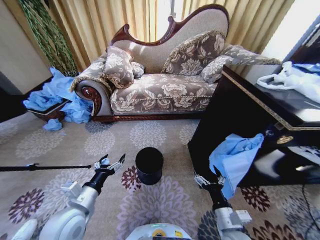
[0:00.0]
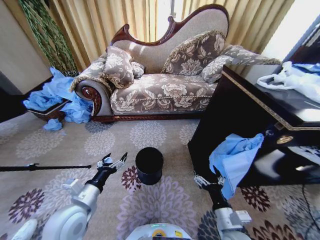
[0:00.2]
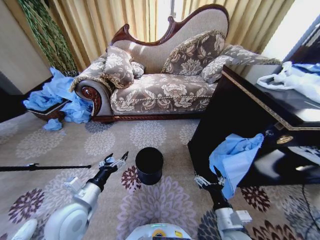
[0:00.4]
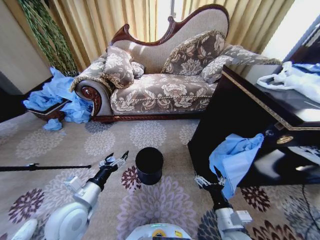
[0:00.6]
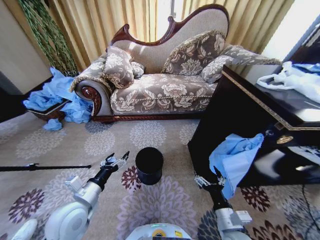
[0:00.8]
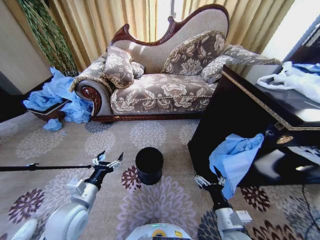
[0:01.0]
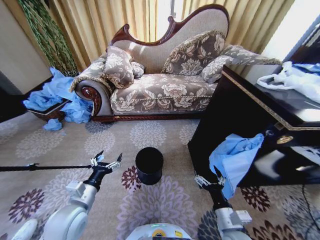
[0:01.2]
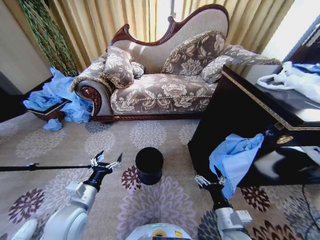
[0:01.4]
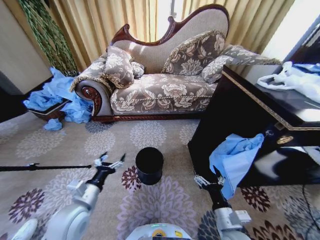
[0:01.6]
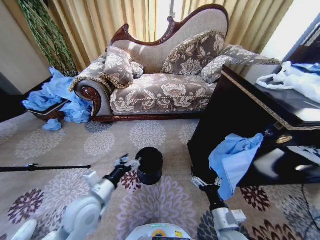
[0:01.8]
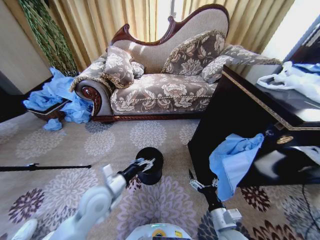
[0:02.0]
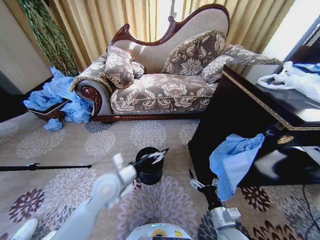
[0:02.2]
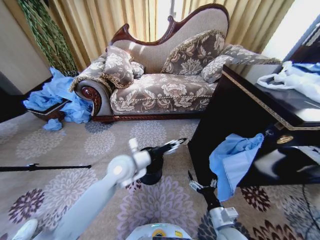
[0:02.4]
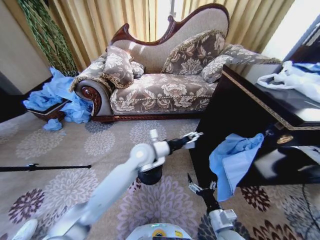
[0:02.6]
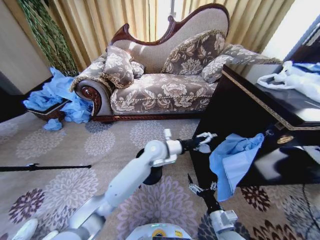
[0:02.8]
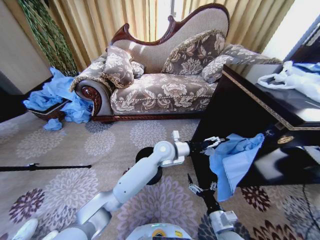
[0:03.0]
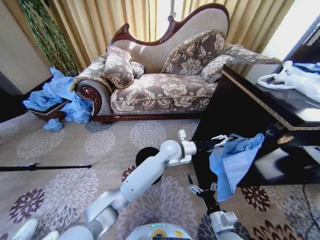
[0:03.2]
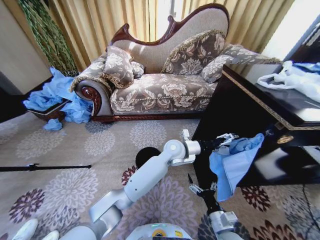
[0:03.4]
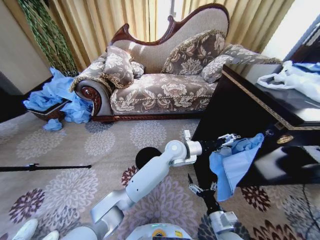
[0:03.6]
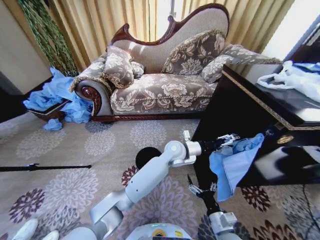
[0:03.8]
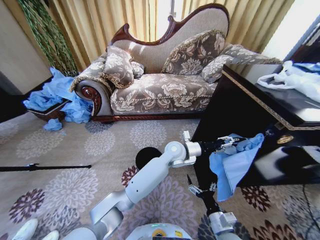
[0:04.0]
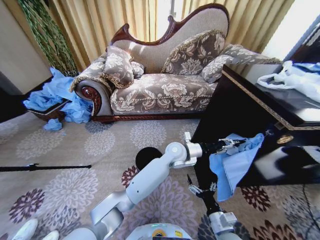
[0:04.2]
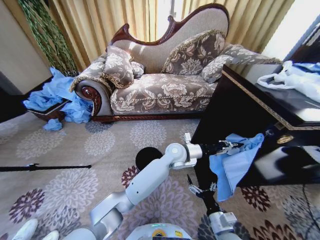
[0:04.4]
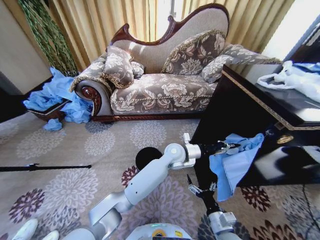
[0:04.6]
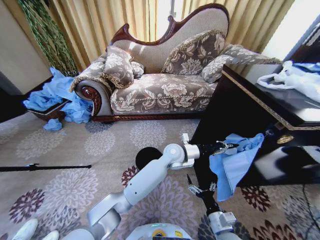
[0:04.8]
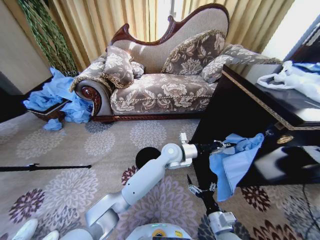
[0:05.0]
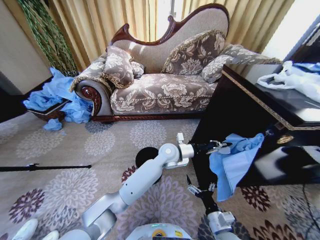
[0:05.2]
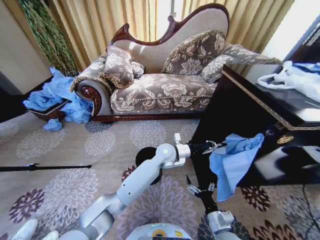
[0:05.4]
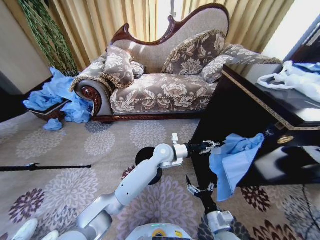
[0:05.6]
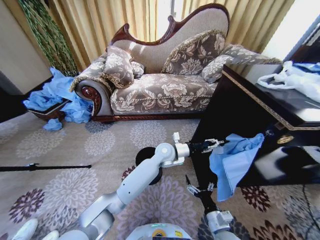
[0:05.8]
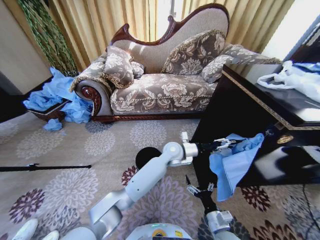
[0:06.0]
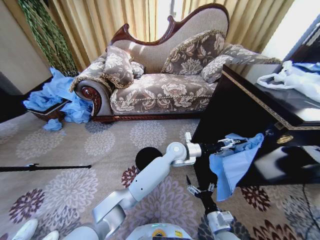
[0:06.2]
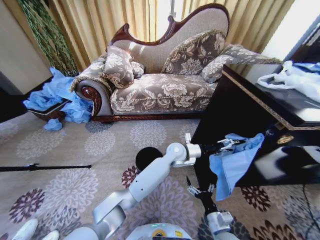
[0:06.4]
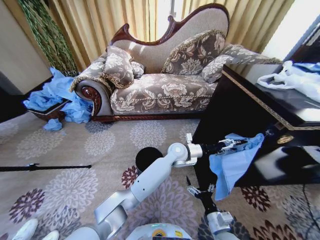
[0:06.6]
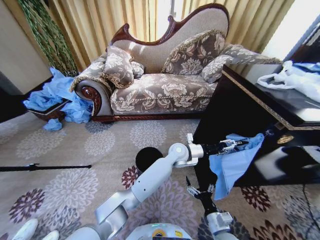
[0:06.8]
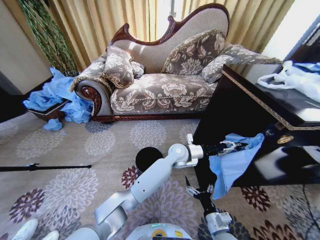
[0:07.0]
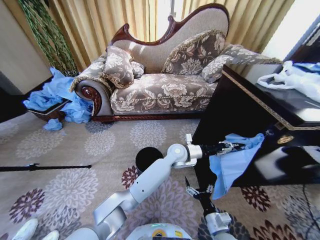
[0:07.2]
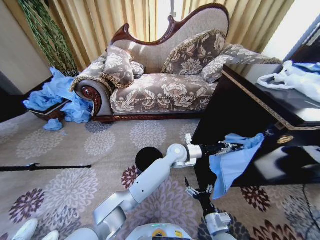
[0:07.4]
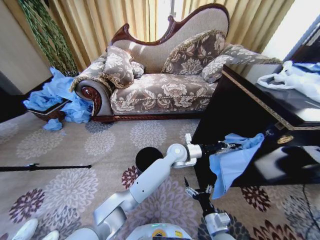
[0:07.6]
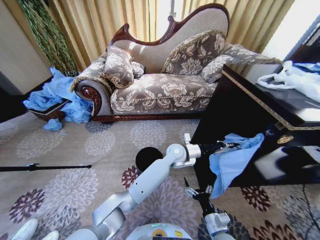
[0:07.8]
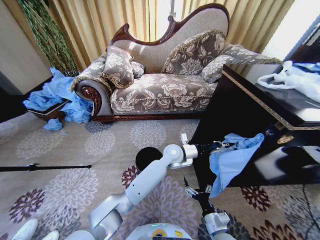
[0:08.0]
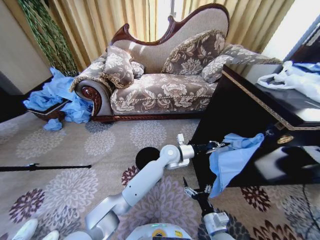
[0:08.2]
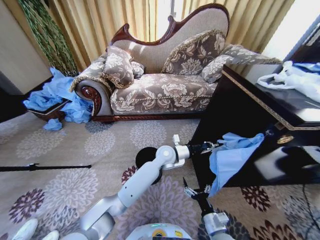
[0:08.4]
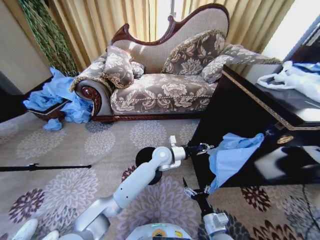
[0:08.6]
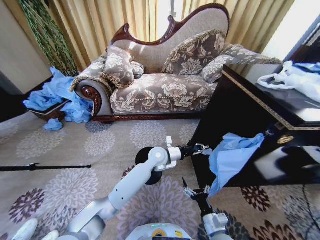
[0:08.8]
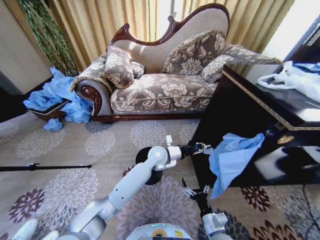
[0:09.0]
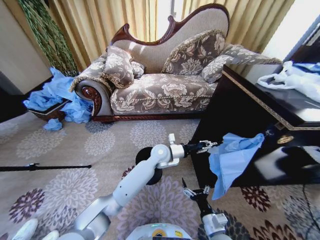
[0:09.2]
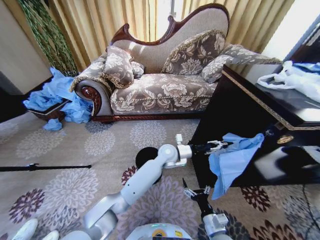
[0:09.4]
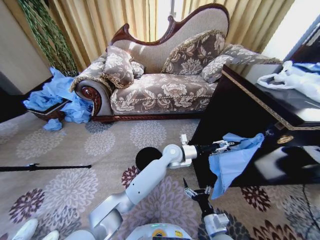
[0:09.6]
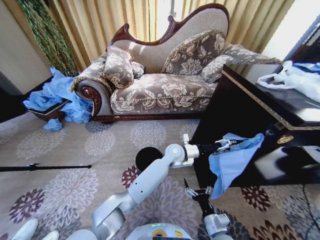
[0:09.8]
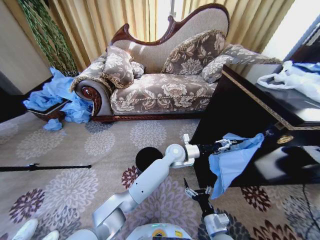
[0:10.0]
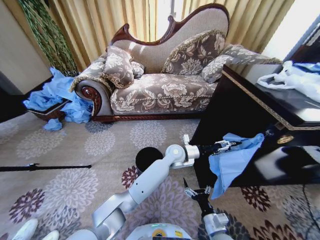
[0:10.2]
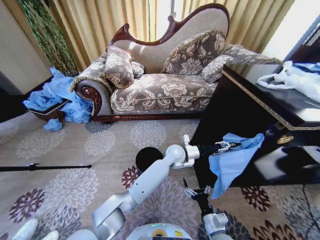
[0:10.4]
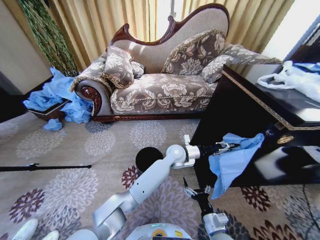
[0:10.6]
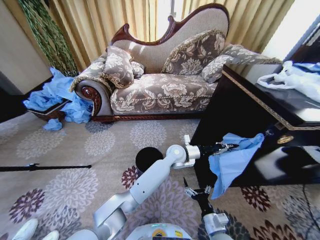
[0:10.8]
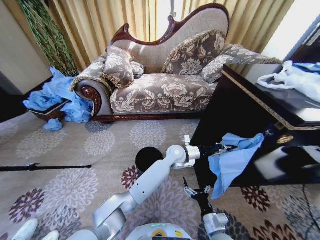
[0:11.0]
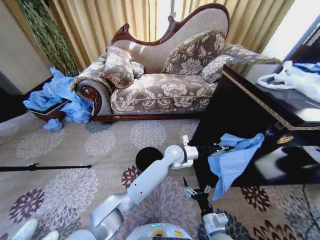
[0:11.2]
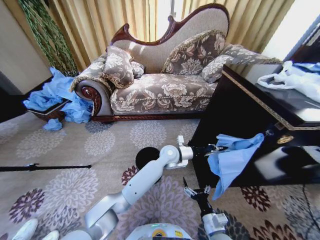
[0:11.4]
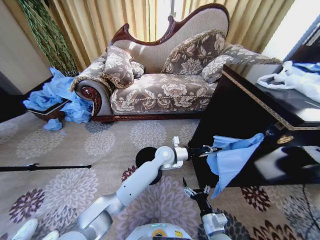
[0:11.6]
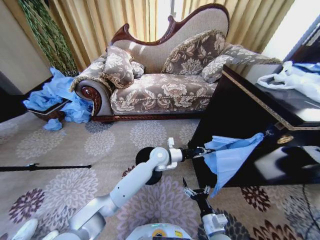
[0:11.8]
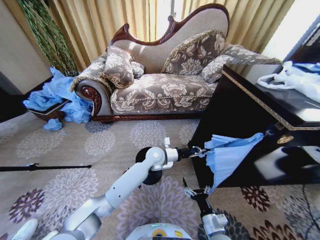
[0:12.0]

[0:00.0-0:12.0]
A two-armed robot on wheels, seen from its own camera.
Task of the whole recording: Place a garbage bag over the trash bin.
0:01.6 to 0:03.0: The right gripper travels downward by approximately 5 cm. The left gripper goes roughly 35 cm to the right and forward.
0:03.0 to 0:04.4: The left gripper moves some 5 cm, and closes its fingers.
0:04.4 to 0:06.0: The left gripper opens.
0:06.0 to 0:07.6: The left gripper closes.
0:07.6 to 0:09.0: The left gripper heads to the left, covering about 10 cm.
0:09.0 to 0:10.4: The left gripper heads to the right, covering some 10 cm, and opens up.
0:10.4 to 0:12.0: The left gripper heads to the left, covering approximately 10 cm, and closes up.

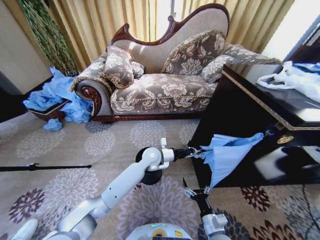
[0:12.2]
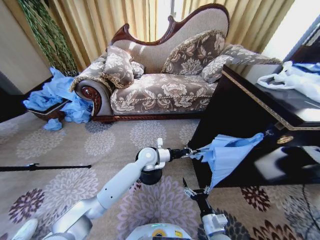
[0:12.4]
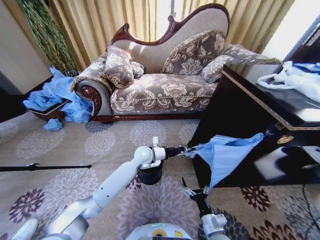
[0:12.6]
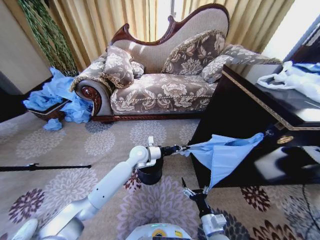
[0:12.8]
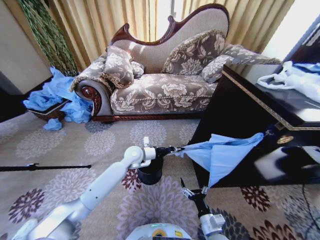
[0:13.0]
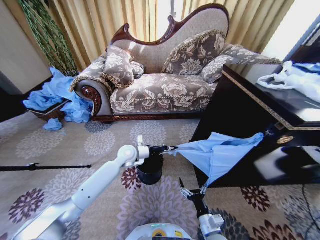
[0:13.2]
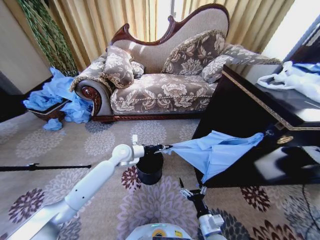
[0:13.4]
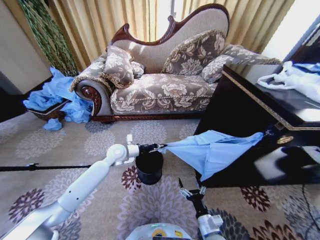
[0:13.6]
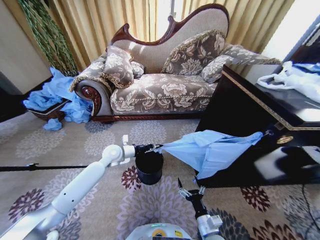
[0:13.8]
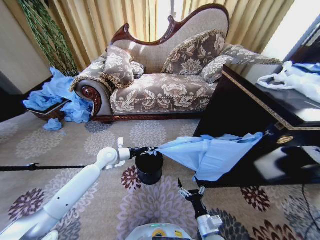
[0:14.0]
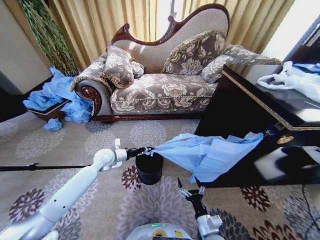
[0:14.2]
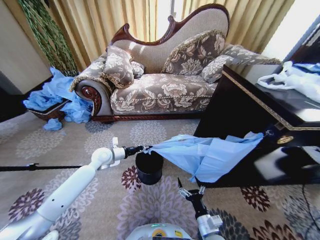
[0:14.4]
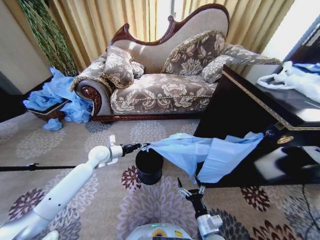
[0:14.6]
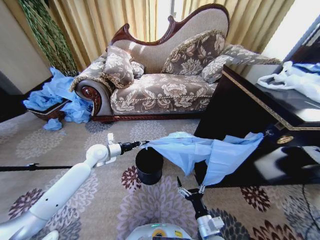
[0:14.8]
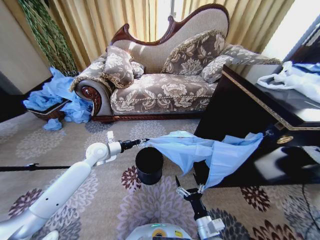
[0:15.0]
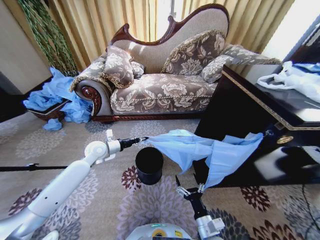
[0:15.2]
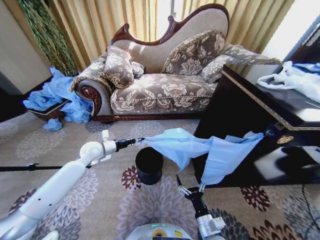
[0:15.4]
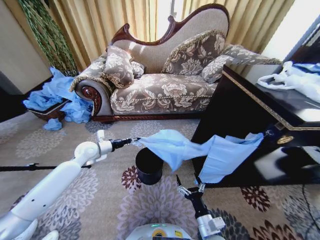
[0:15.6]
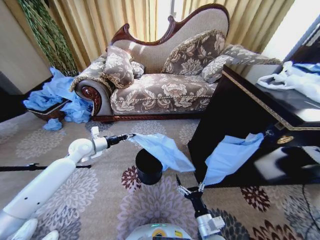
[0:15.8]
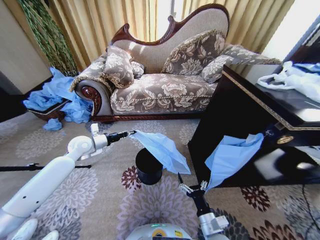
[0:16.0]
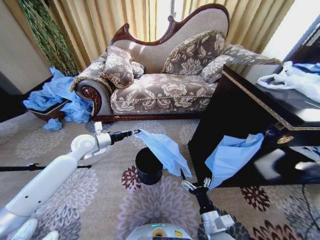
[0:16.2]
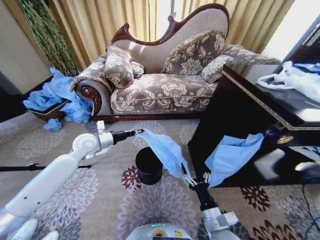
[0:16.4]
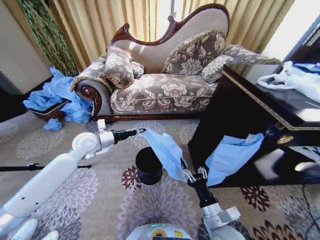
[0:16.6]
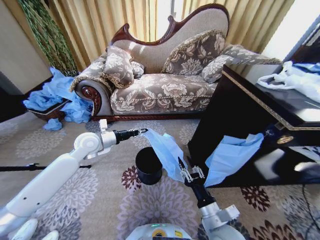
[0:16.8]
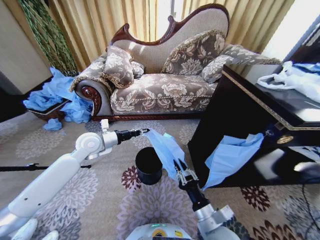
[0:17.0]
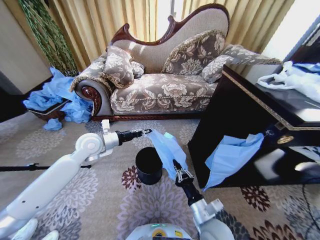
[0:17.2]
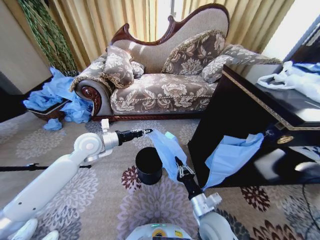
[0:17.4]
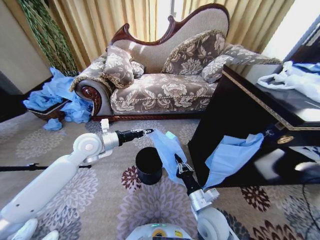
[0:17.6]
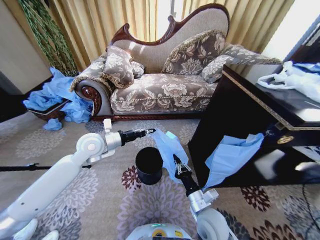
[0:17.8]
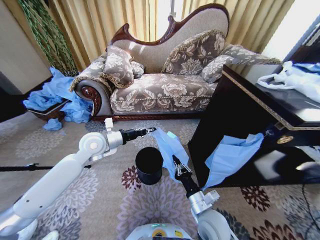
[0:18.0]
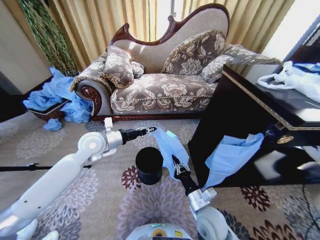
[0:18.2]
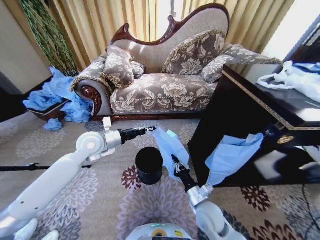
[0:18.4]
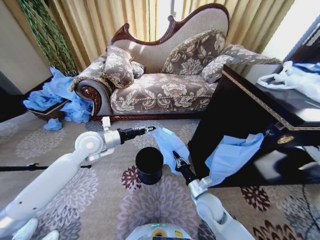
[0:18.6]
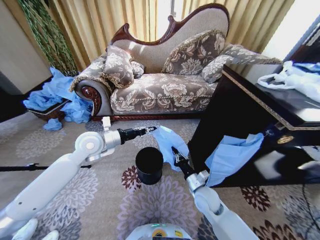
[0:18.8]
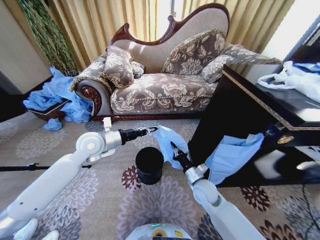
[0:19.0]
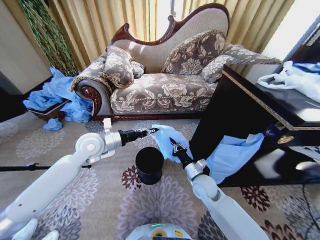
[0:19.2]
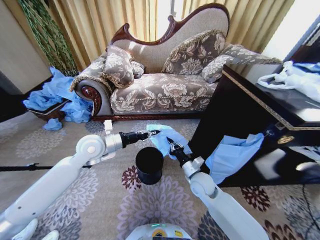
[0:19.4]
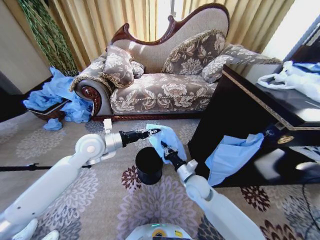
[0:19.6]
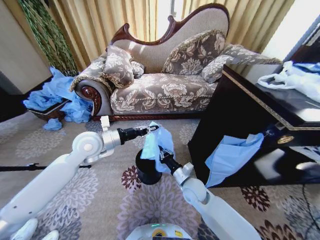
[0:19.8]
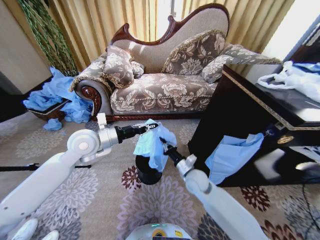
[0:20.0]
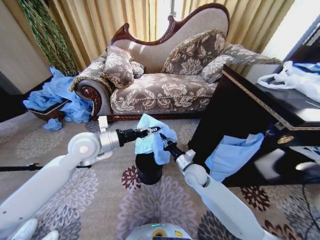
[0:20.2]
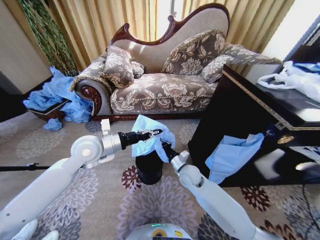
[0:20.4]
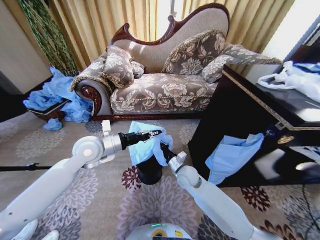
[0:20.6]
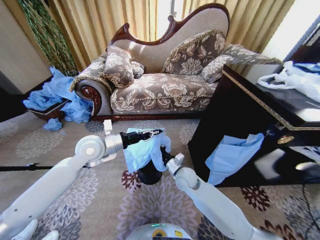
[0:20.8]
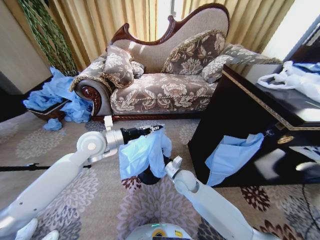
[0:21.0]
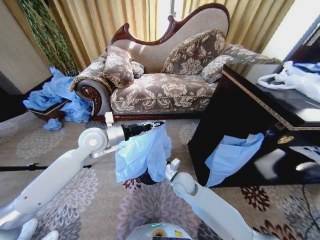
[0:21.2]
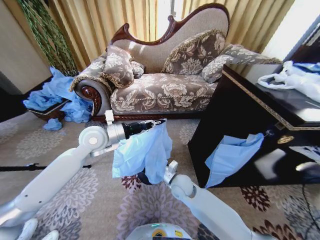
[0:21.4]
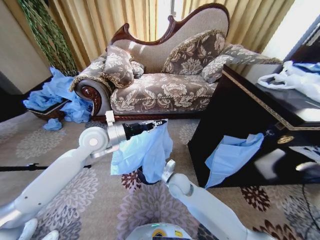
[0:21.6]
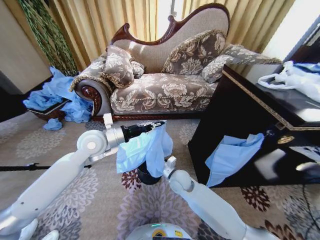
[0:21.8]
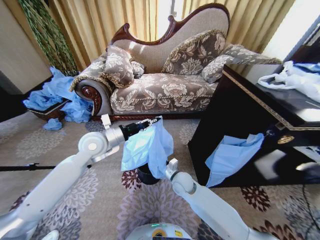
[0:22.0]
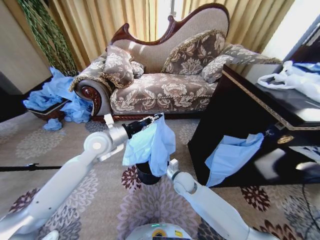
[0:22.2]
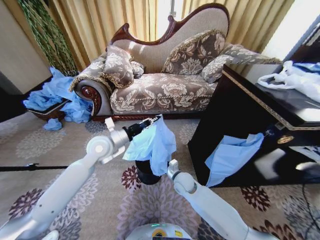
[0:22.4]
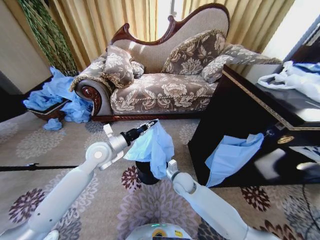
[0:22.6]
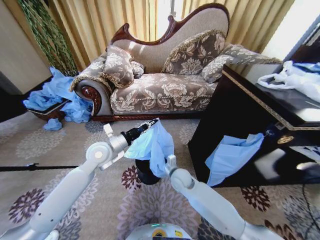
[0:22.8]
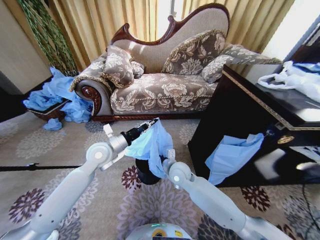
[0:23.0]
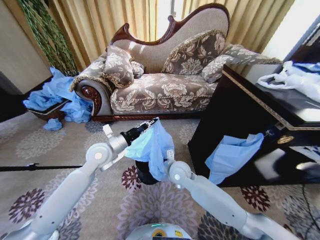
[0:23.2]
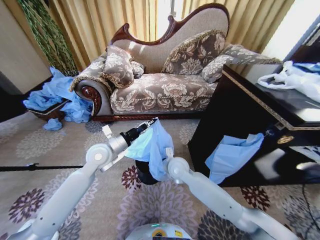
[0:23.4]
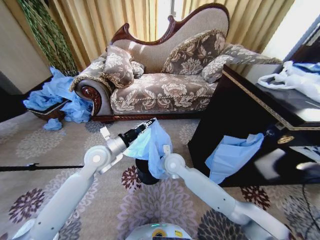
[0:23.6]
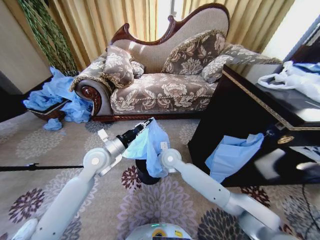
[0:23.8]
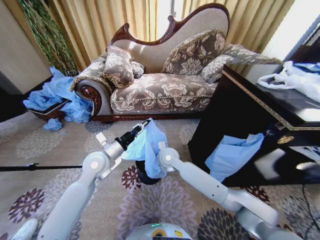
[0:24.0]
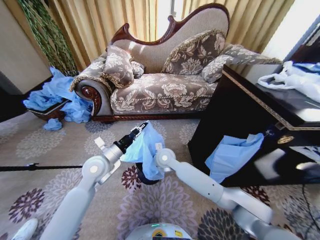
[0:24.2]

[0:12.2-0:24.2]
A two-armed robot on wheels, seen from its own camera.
Task of the whole recording: Place a garbage bag over the trash bin.
0:12.2 to 0:13.8: The left gripper travels to the left by some 20 cm.
0:13.8 to 0:15.2: The left gripper shifts roughly 5 cm to the left.
0:15.2 to 0:16.6: Both grippers move upward, some 10 cm. The right gripper closes.
0:16.6 to 0:18.2: The left gripper moves some 5 cm. Meanwhile the right gripper is displaced forward by about 5 cm, and closes its fingers.
0:18.2 to 0:19.8: The right gripper shifts roughly 10 cm forward.
0:19.8 to 0:21.2: The grippers move only a little.
0:21.2 to 0:22.6: The left gripper goes approximately 5 cm downward.
0:22.6 to 0:24.2: The left gripper ends up approximately 5 cm from where it was. The right gripper shifts some 15 cm upward, to the left and forward.
